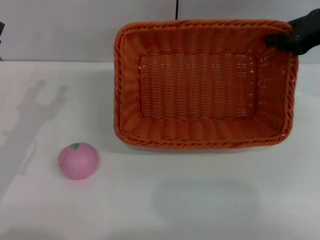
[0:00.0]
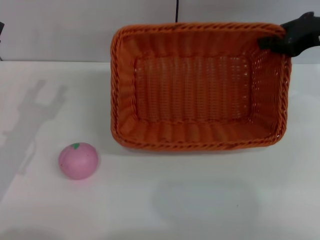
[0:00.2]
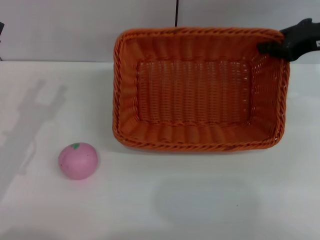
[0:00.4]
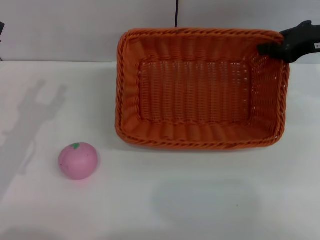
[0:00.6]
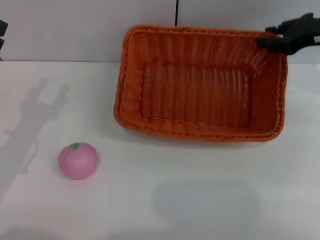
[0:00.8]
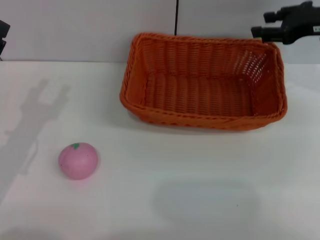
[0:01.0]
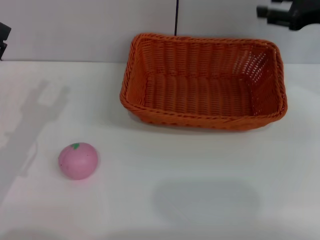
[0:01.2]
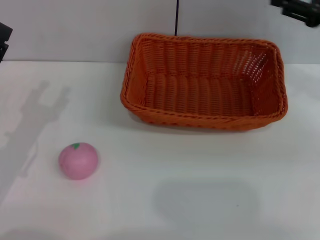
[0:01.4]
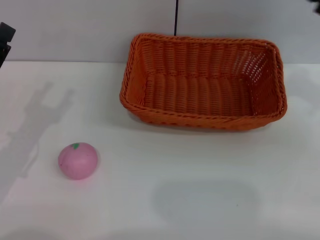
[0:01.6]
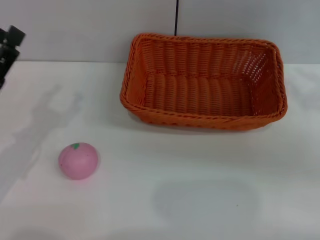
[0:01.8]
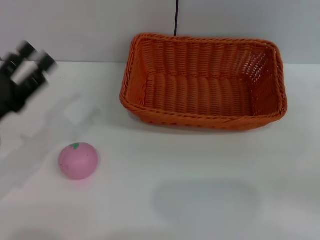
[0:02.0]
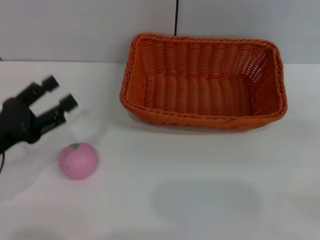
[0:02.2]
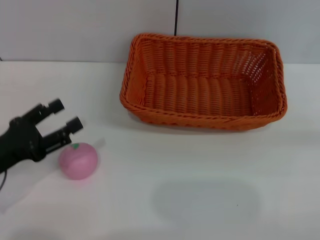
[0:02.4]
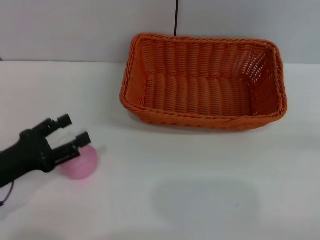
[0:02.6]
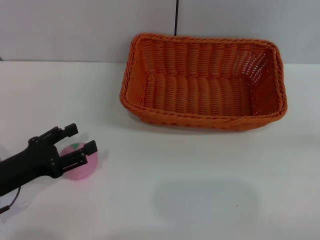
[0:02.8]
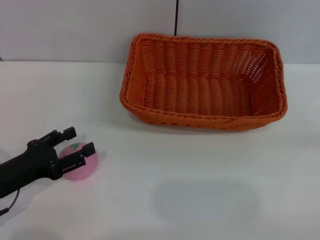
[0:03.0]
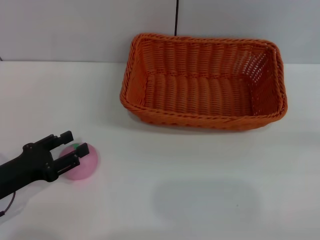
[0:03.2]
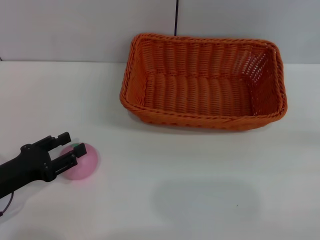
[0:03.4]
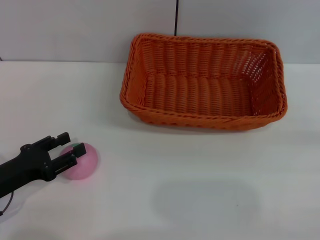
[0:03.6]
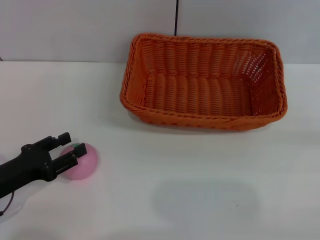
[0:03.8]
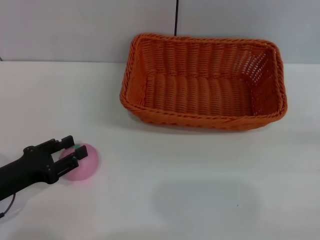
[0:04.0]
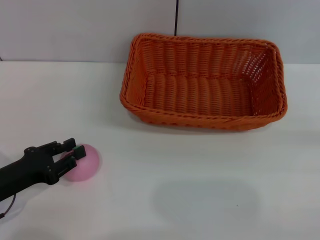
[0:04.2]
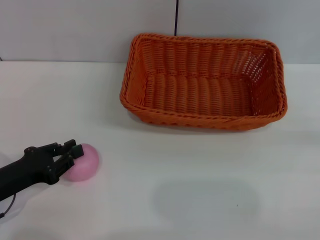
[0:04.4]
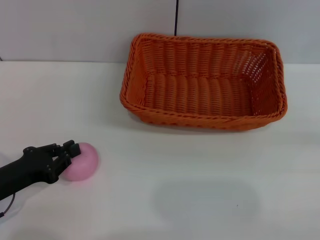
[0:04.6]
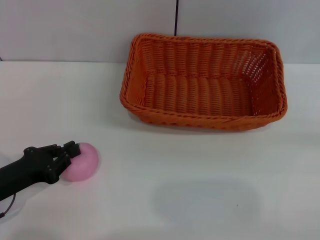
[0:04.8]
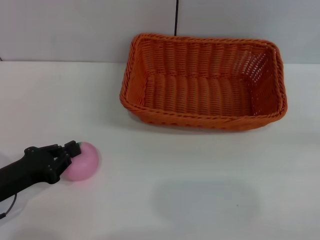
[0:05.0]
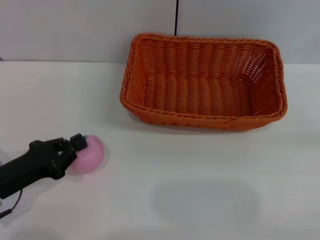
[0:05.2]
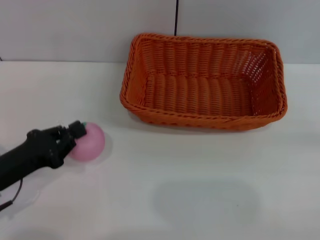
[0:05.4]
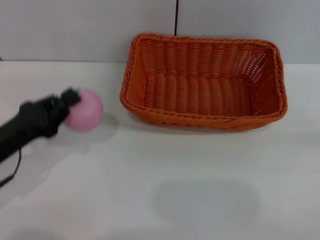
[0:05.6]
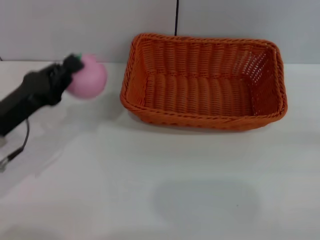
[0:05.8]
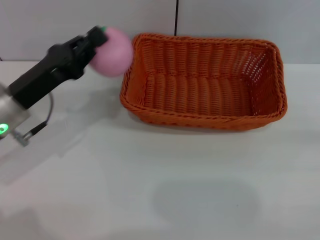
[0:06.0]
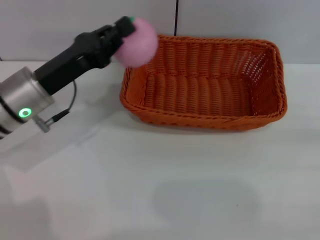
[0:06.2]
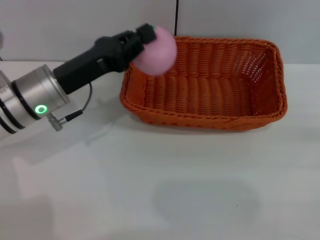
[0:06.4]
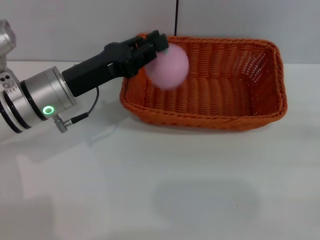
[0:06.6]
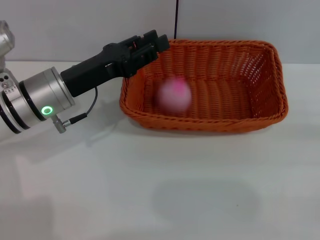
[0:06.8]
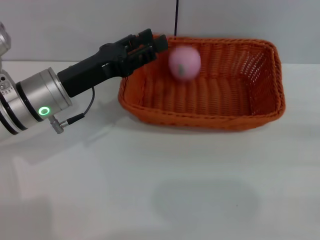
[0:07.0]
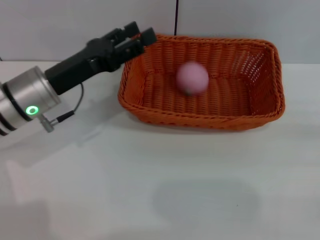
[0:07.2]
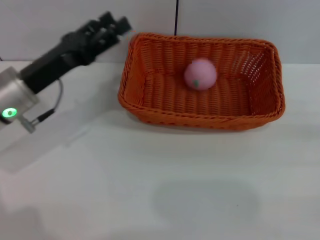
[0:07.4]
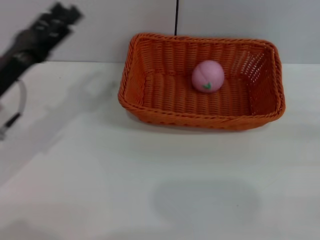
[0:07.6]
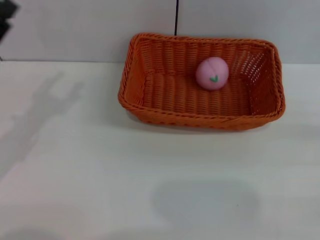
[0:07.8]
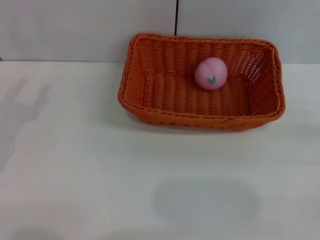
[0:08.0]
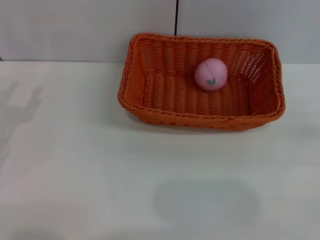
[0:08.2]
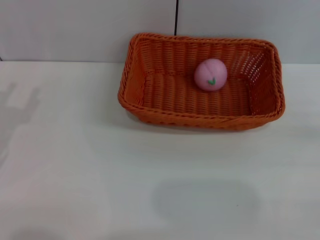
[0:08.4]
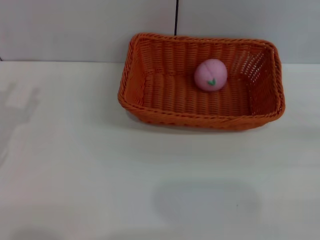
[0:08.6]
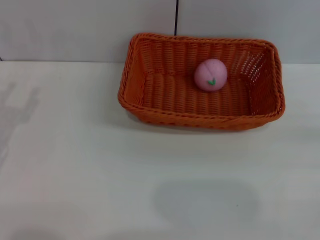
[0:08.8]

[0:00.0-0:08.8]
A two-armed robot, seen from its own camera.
Step, 0:00.0 to 0:01.4: Place the light basket in the center of view with the right gripper.
Step, 0:01.6 to 0:05.8: Pick up the peach with the left gripper.
Step, 0:06.0 to 0:07.6: Place the peach into the basket with the left gripper.
0:00.0 to 0:01.4: The right gripper opens its fingers.
0:01.4 to 0:03.0: The right gripper heads backward, to the right and downward, covering about 25 cm.
0:03.0 to 0:04.4: The left gripper closes.
0:04.4 to 0:05.8: The left gripper is displaced upward and forward by approximately 10 cm.
0:05.8 to 0:07.4: The left gripper opens its fingers.
0:07.4 to 0:08.8: The left gripper is displaced to the left and backward by approximately 15 cm.
